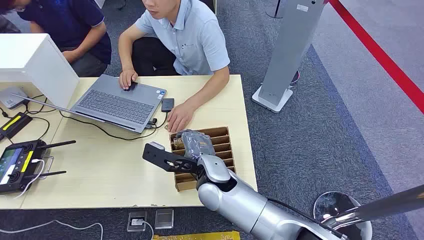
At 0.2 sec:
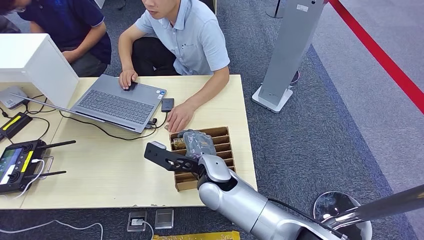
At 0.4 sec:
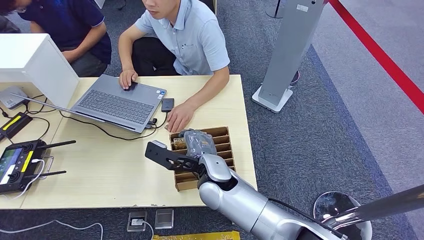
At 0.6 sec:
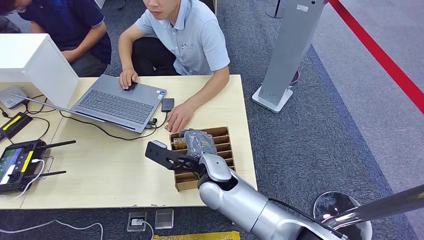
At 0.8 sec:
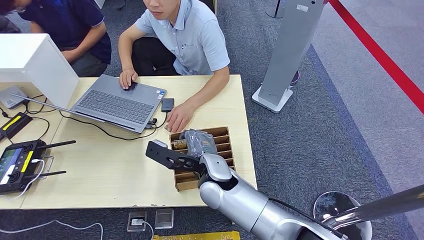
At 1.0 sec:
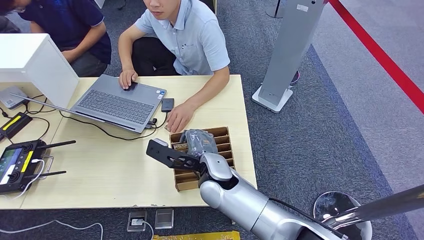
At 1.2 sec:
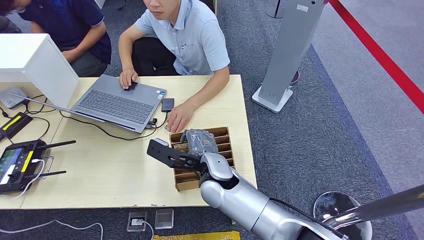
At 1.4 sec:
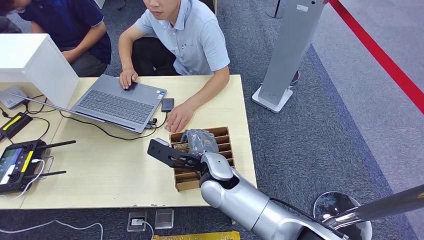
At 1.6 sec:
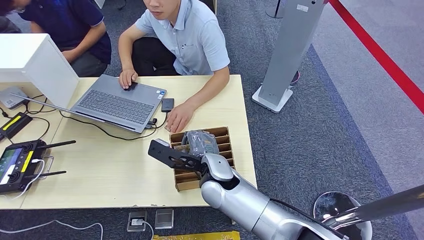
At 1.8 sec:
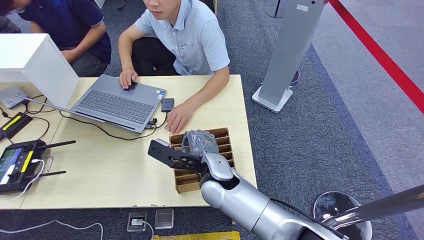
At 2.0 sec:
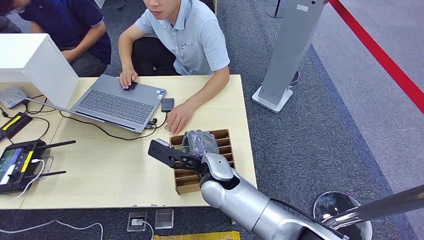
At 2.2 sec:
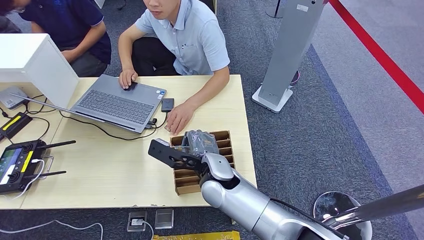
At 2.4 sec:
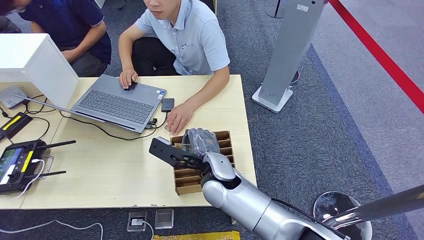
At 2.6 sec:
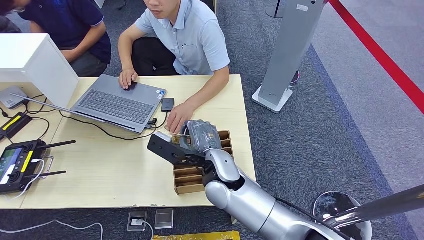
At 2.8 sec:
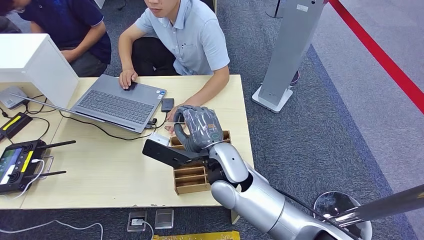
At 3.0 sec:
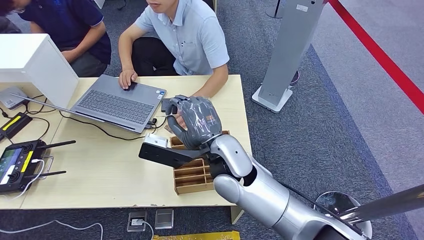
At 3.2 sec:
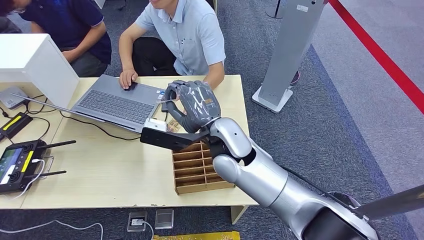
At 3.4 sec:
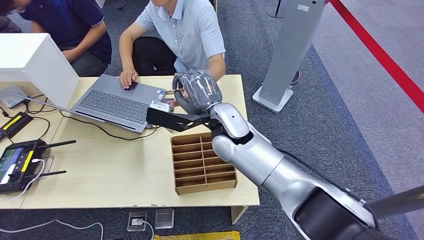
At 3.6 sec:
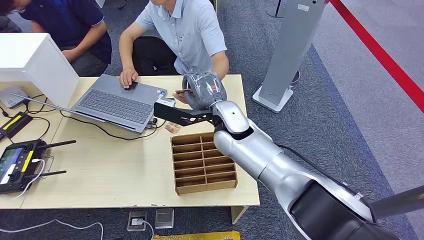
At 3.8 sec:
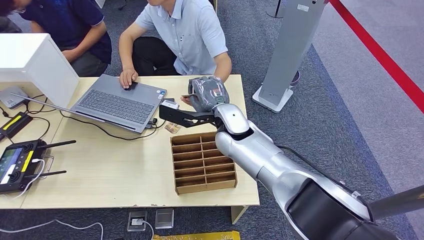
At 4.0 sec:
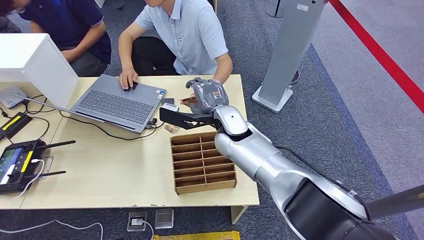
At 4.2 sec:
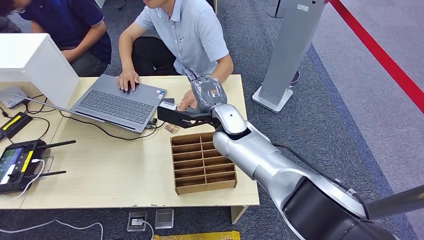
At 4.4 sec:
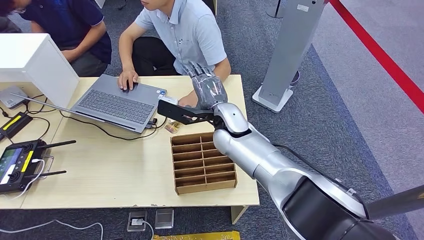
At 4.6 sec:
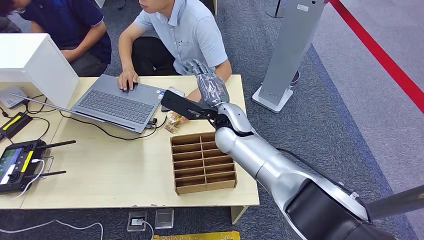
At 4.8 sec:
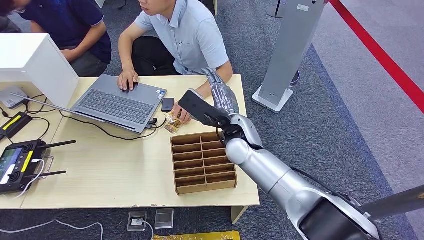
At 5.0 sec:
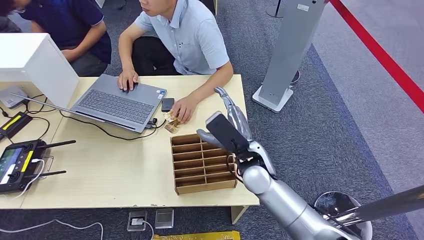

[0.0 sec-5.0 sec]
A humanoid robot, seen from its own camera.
Step, 0.0 sec to 2.8 sec: Pick up the room card from the card holder.
Step, 3.4 sec to 4.8 sec: Hand the room card to the target.
1.6 sec to 3.4 sec: The right hand shifts approximately 10 cm upward and forward.
3.4 sec to 5.0 sec: The right hand shifts roughly 10 cm downward, to the right and backward.
